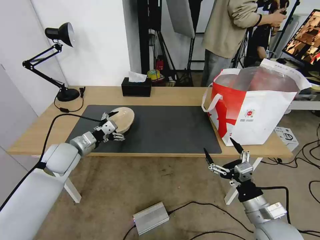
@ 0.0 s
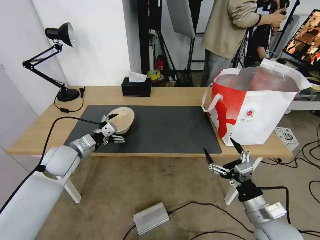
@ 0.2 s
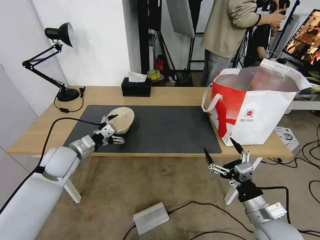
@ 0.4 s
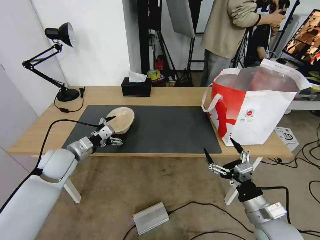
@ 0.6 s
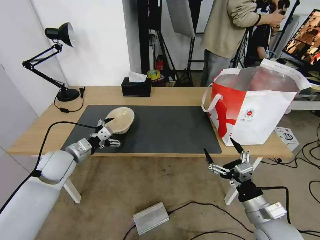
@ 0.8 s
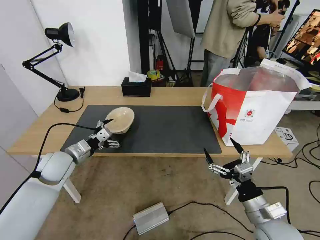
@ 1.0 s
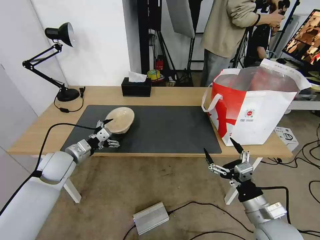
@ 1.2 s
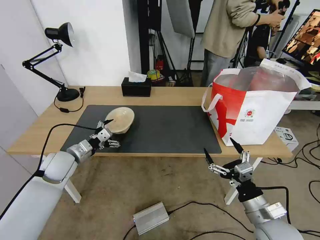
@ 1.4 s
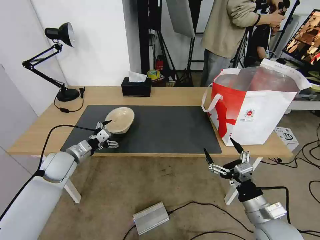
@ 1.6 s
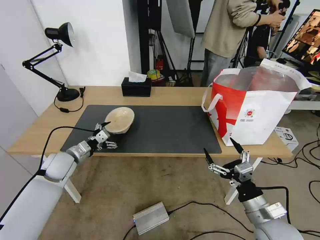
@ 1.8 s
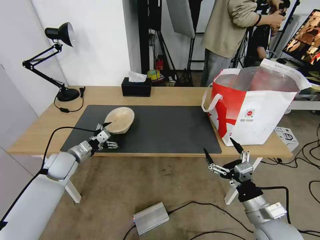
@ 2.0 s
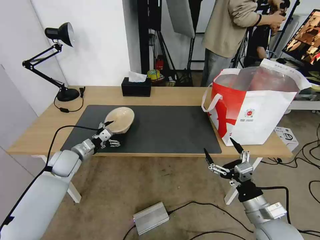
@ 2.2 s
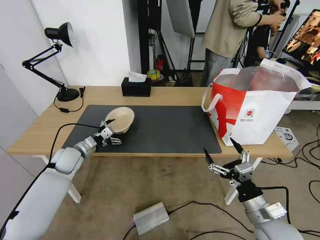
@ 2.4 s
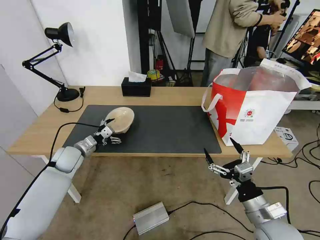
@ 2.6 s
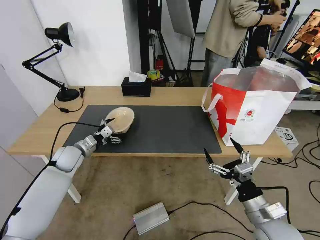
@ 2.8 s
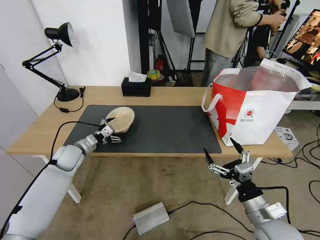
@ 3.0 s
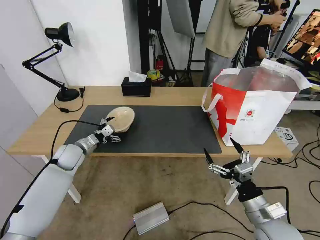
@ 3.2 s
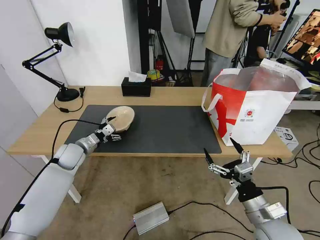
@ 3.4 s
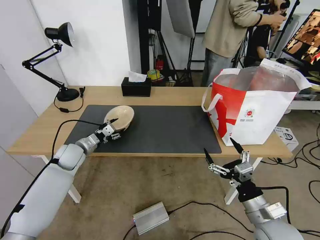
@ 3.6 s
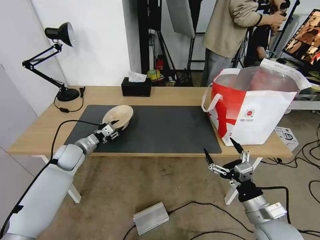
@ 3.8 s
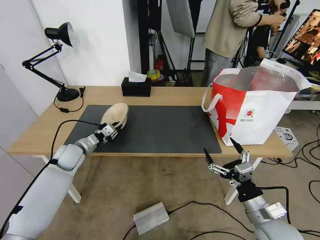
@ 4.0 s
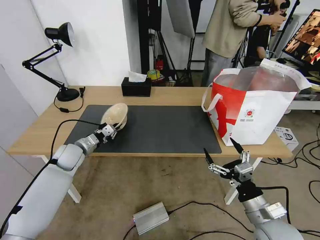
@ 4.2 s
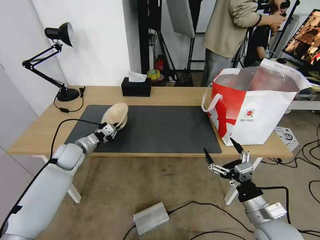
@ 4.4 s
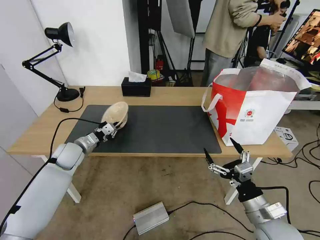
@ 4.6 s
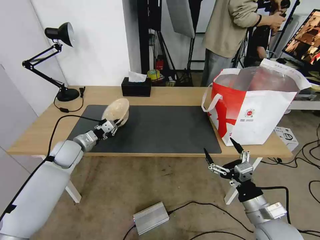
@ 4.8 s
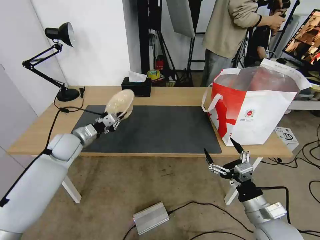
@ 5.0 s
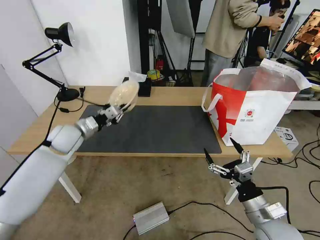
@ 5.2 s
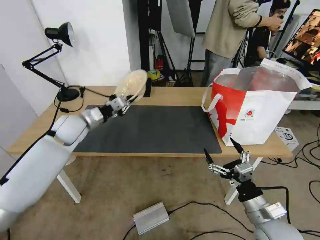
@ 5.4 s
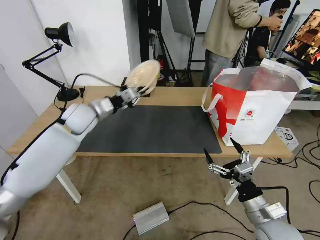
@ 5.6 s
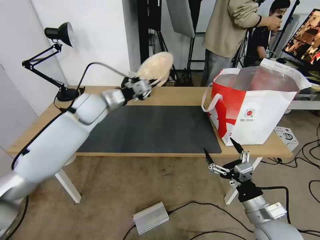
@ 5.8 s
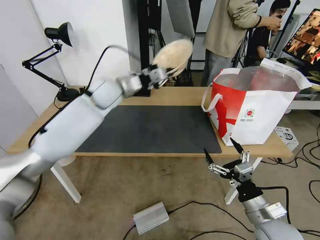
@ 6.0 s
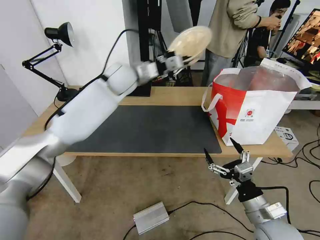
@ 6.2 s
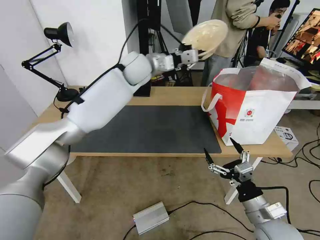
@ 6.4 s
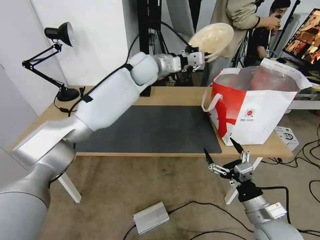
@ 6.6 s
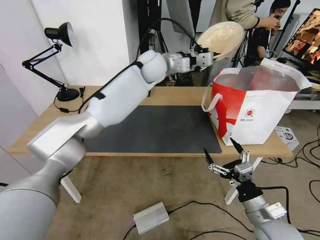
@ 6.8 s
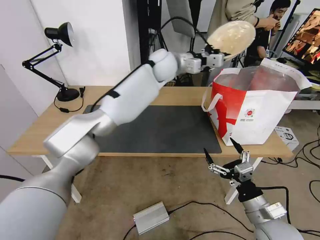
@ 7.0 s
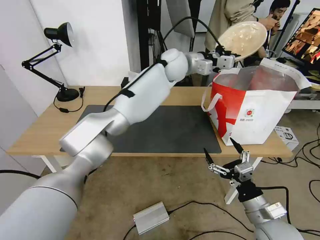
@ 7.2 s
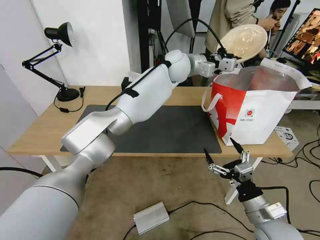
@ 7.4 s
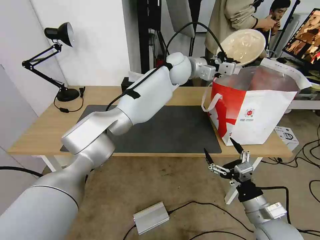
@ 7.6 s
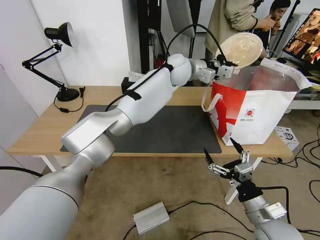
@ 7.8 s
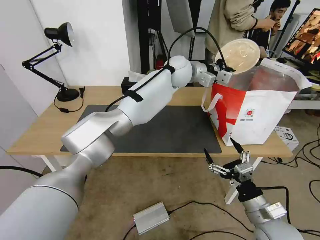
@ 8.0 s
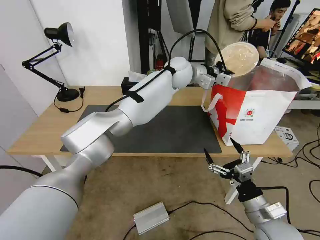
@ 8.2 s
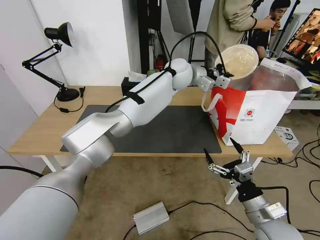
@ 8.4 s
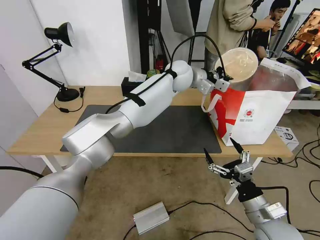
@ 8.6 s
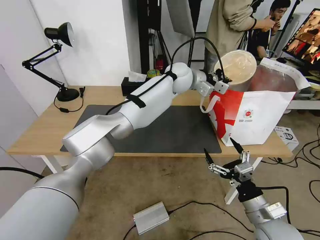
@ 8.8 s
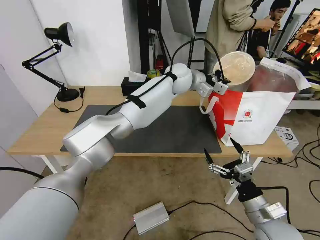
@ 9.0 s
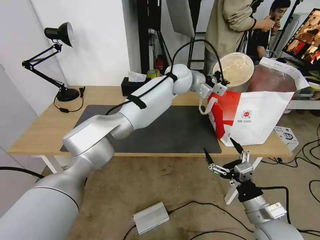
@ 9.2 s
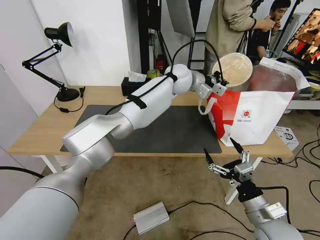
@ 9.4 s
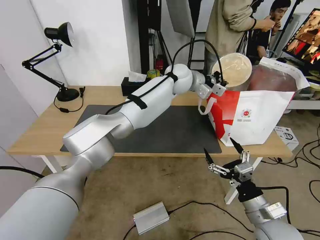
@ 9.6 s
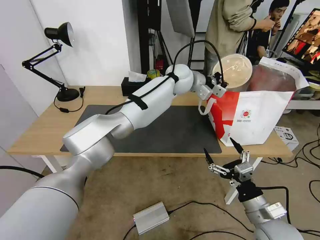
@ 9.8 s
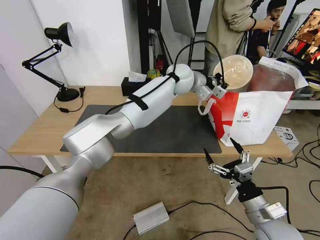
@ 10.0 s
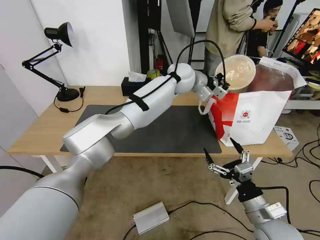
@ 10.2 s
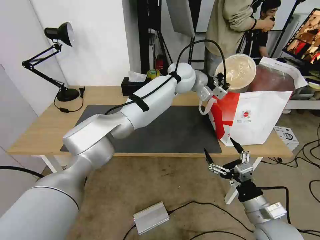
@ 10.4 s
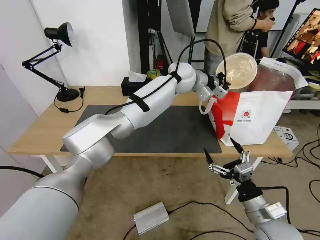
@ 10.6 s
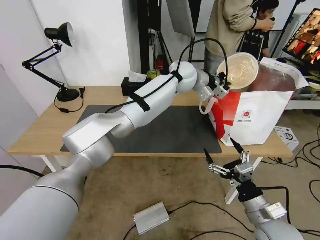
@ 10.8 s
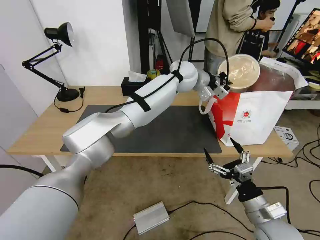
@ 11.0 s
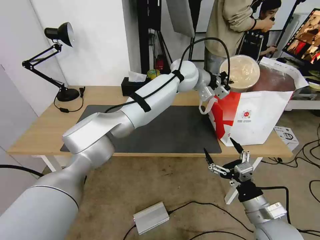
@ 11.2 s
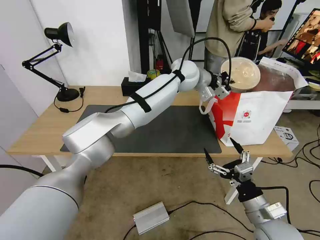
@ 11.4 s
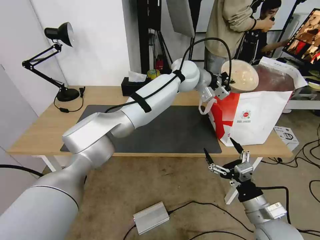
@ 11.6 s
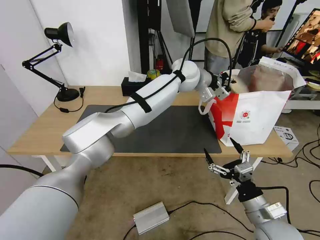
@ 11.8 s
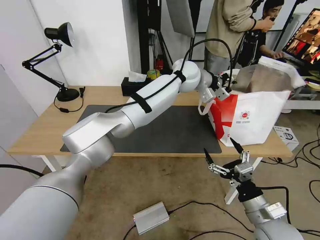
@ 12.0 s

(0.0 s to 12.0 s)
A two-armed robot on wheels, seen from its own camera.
Task of the whole recording: Pick up the trash from the table and place it into the takeout bag.
0.0 s - 1.6 s: The left gripper moves some 5 cm.
1.6 s - 3.0 s: The left gripper goes roughly 5 cm forward.
3.0 s - 4.4 s: The left gripper closes its fingers.
4.4 s - 6.0 s: The left gripper heads upward, to the right and forward, covering some 30 cm.
6.0 s - 7.6 s: The left gripper goes about 25 cm to the right.
7.6 s - 9.0 s: The grippers stay close to where they were, moving slightly.
9.0 s - 10.4 s: The grippers stay close to where they were, moving slightly.
10.4 s - 12.0 s: The left gripper opens its fingers.

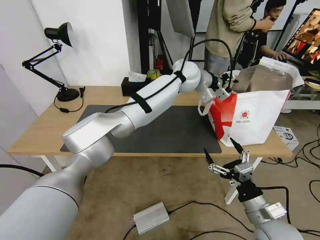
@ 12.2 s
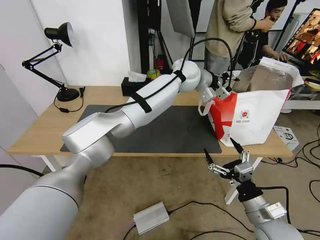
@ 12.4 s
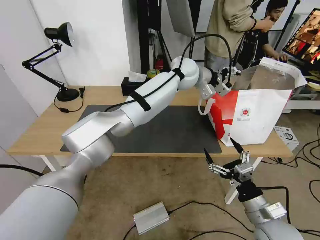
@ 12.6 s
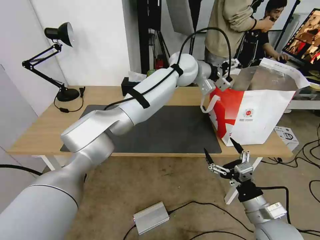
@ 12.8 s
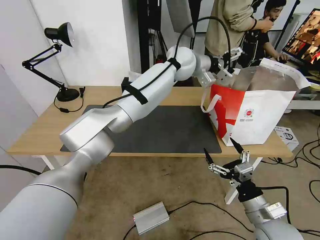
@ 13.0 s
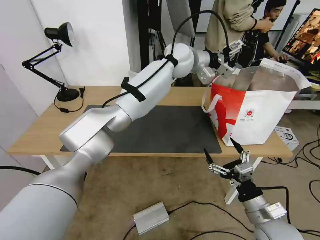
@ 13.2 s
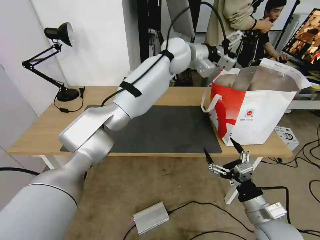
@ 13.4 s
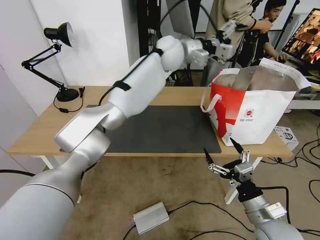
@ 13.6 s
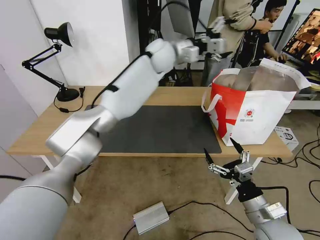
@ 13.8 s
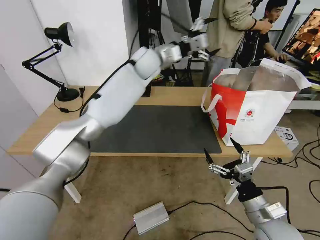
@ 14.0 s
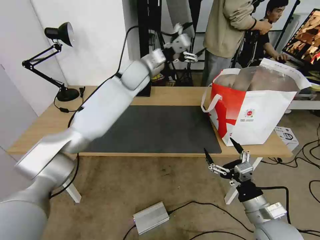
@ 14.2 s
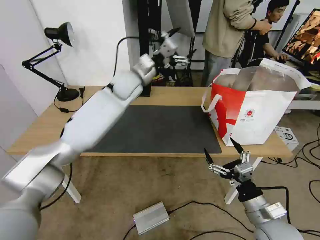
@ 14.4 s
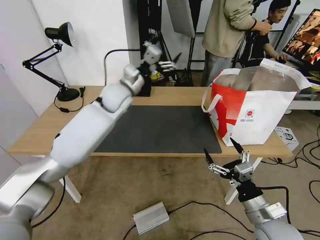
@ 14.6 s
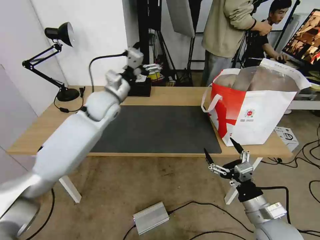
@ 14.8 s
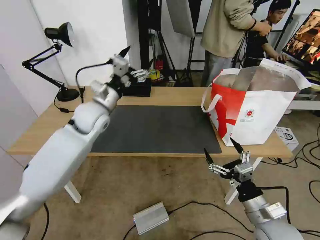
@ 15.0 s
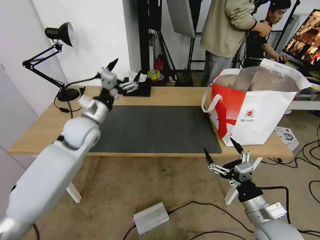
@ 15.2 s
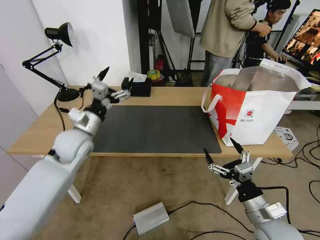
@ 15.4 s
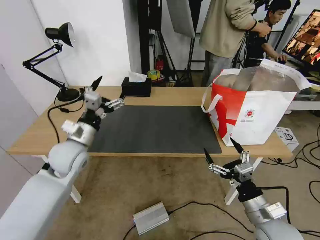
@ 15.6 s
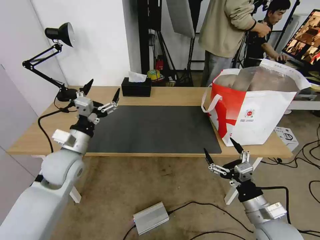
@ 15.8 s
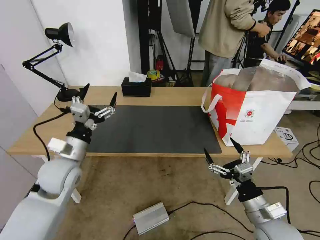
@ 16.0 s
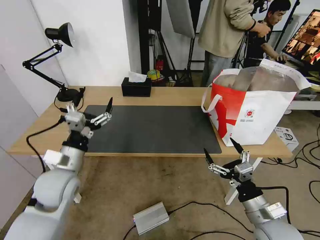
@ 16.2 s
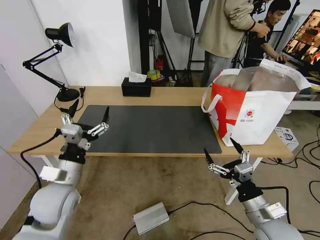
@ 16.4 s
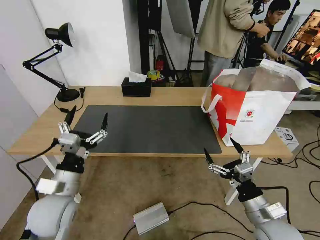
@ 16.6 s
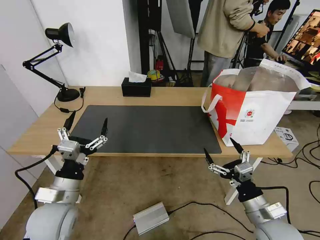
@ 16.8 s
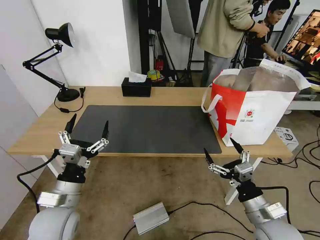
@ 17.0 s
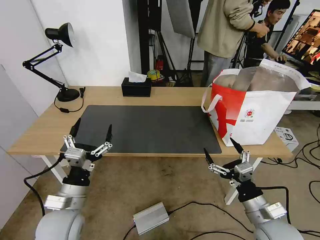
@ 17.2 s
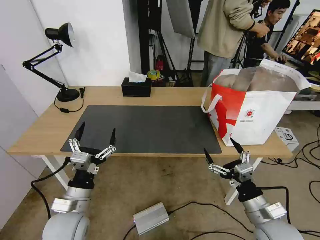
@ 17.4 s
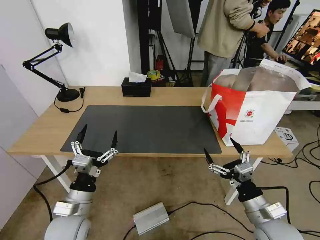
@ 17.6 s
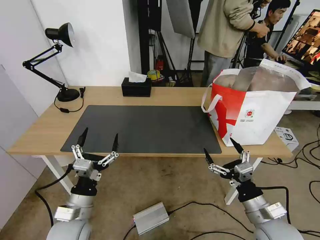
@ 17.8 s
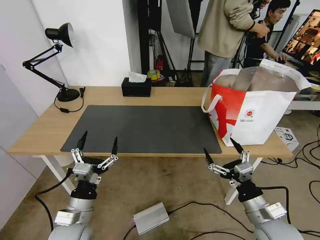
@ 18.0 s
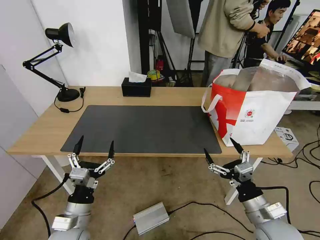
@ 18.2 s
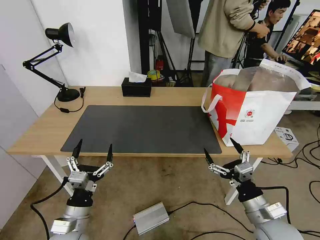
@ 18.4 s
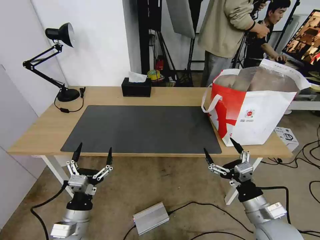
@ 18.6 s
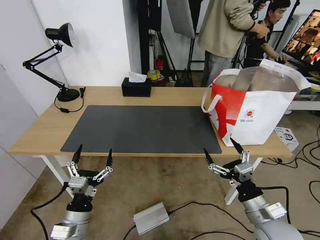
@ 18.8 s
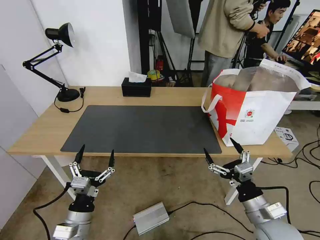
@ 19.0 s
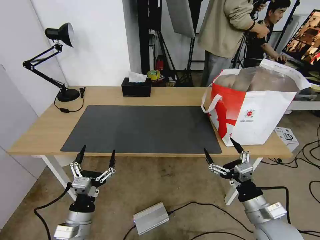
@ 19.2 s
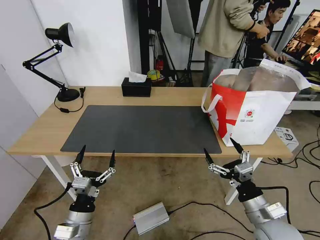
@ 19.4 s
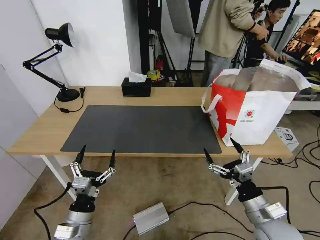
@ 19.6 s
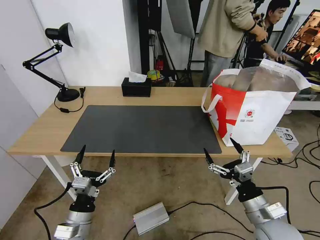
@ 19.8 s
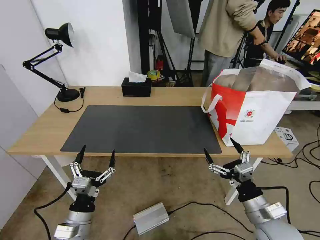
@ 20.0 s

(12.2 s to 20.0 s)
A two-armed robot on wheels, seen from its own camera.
Task of the whole recording: Pick up the trash from the table and place it into the takeout bag.
12.2 s - 13.8 s: The left gripper moves to the left and upward, about 10 cm, and opens its fingers.
13.8 s - 15.4 s: The left gripper travels to the left, backward and downward by approximately 40 cm.
15.4 s - 16.8 s: The left gripper moves backward and downward, about 20 cm.
16.8 s - 18.4 s: The left gripper is displaced downward by approximately 10 cm.
18.4 s - 20.0 s: There are only small adjustments of the grippers.
